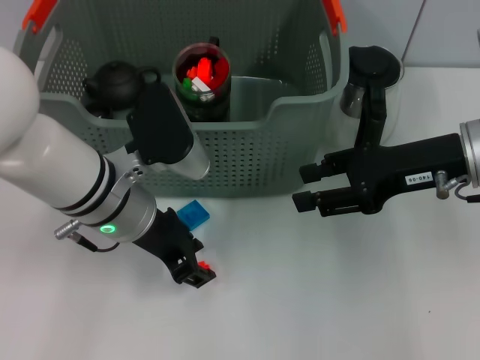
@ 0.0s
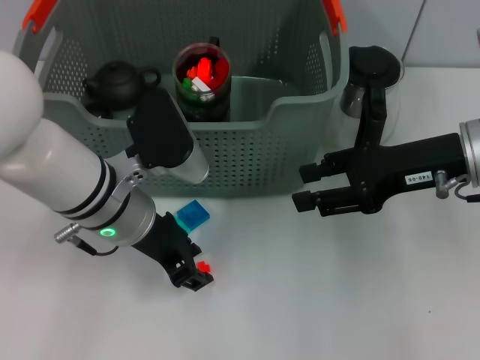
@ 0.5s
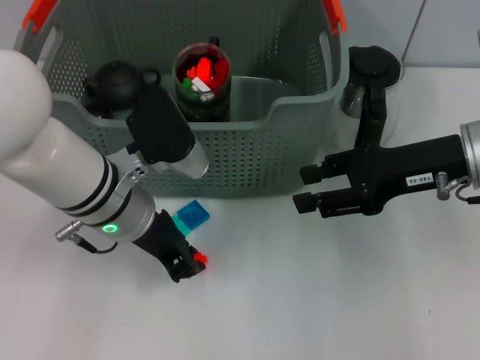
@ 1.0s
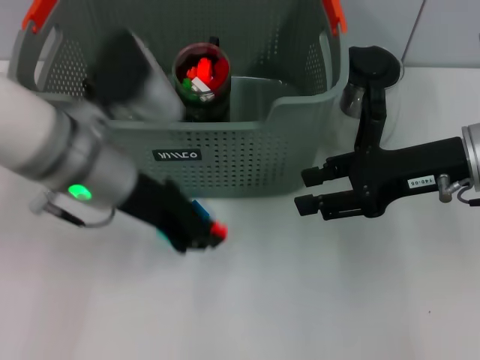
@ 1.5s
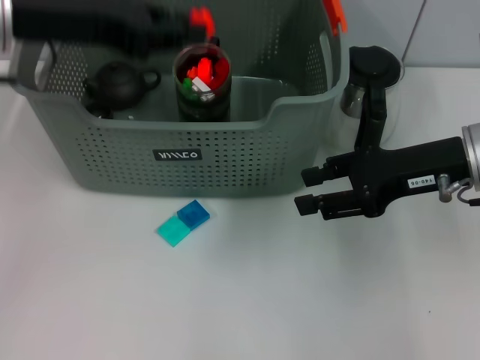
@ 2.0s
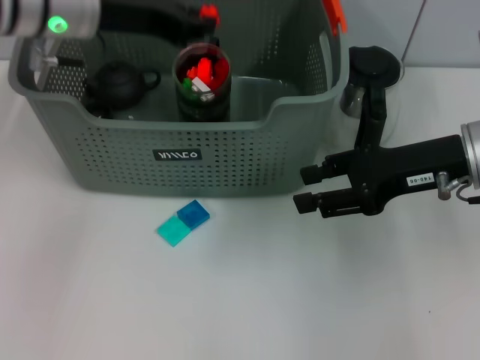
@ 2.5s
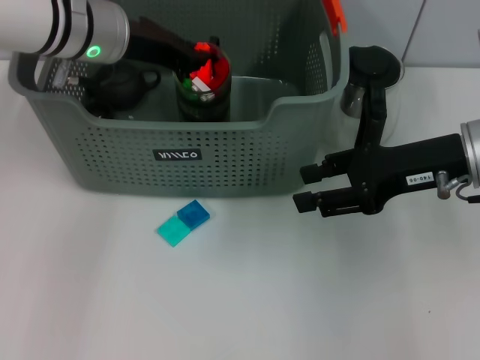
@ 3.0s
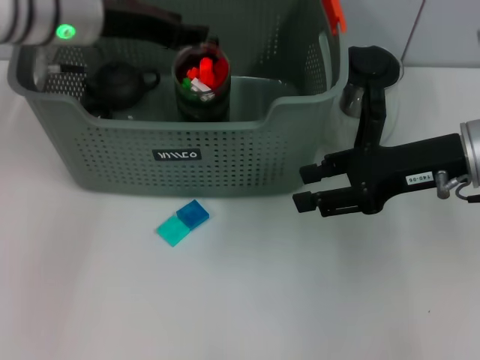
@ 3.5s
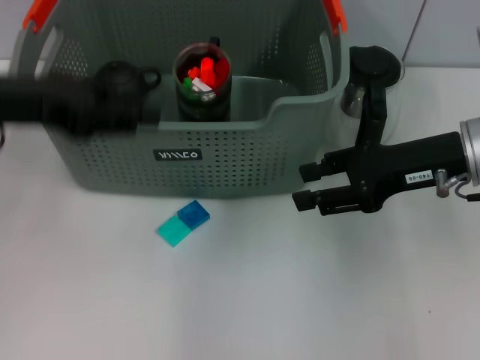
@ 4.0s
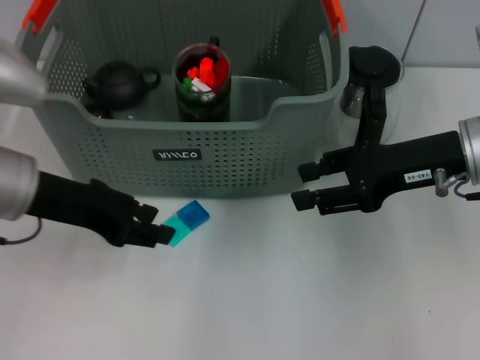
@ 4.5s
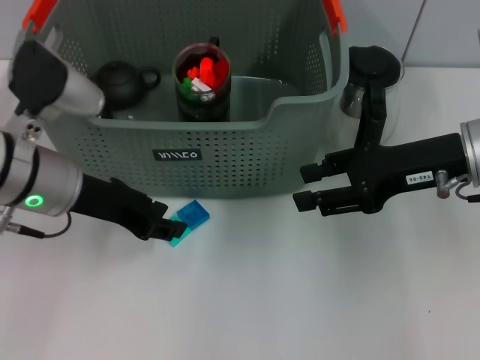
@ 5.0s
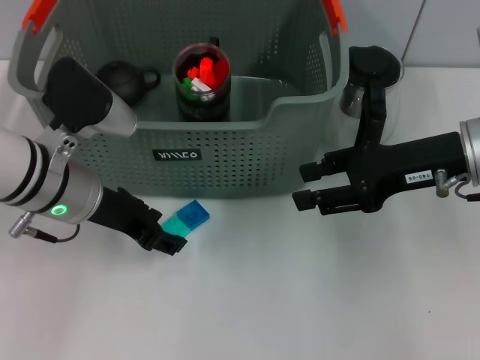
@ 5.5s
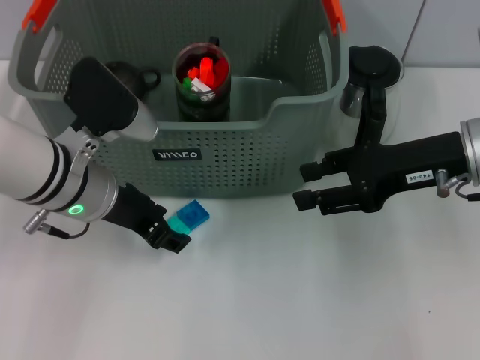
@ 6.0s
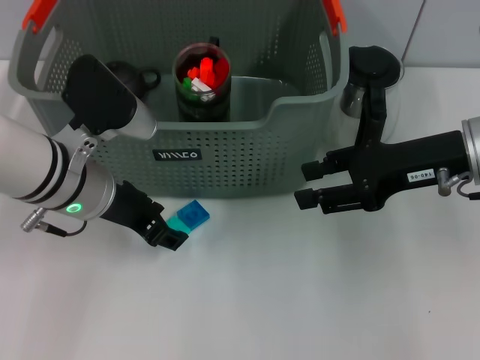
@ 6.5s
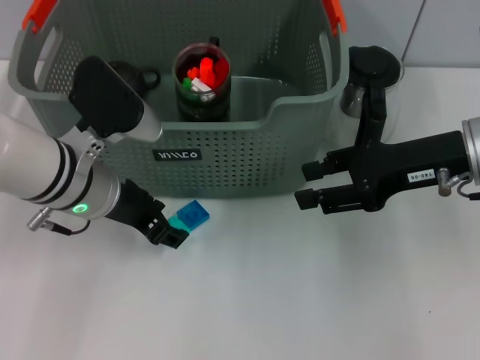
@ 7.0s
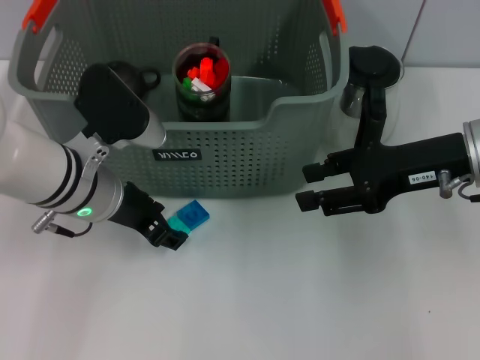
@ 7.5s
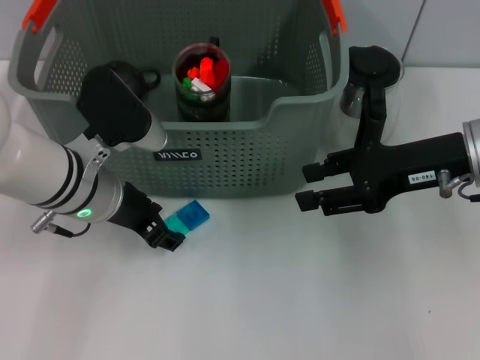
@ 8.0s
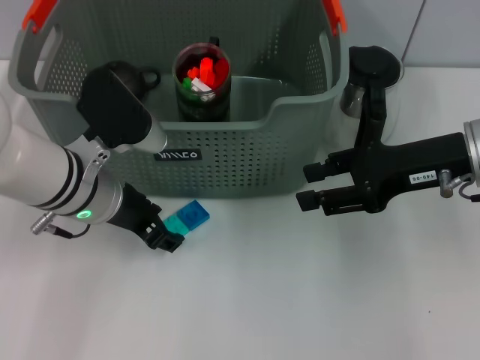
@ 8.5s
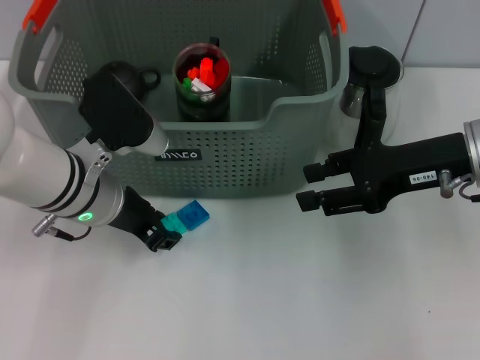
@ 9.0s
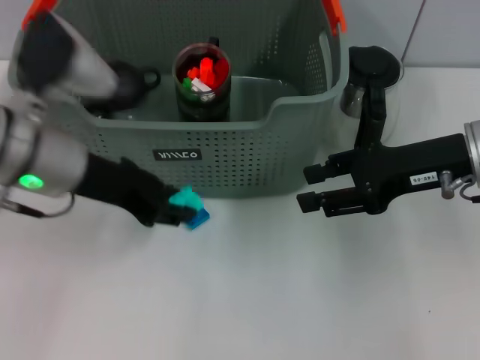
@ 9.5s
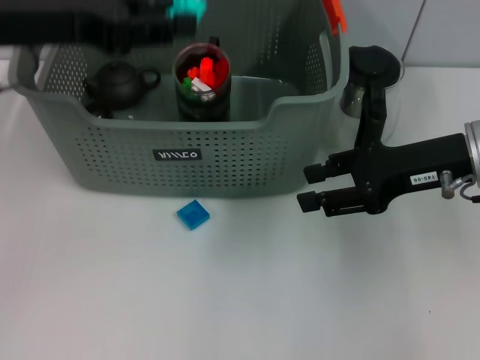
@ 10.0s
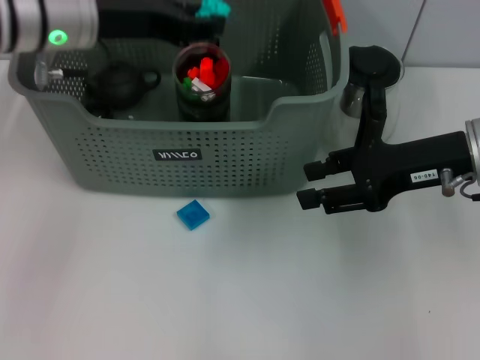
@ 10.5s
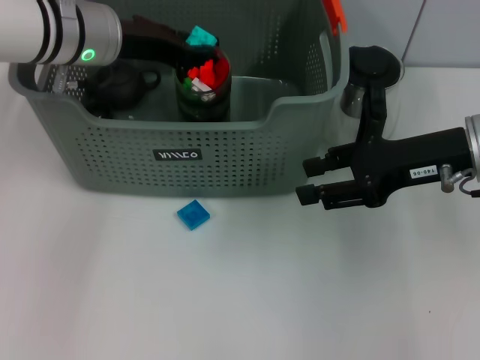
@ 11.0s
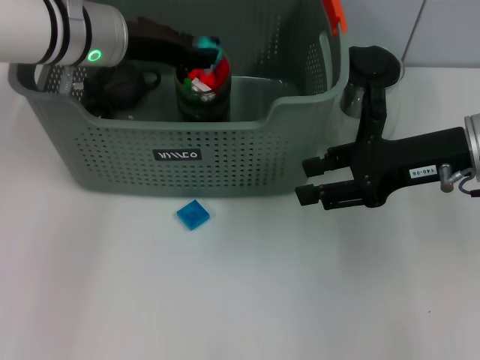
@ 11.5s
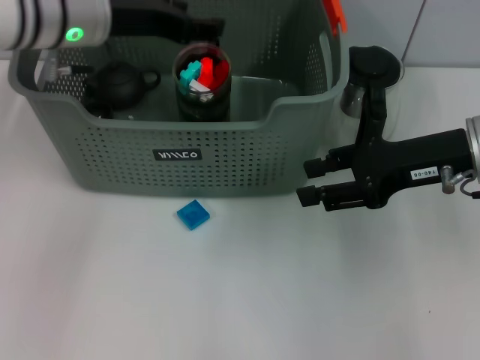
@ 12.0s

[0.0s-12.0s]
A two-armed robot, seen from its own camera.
Task of the whole recording: pick up the teacup on the table and place it into the storage bin, pick up the block on the table and place it into the storage bin.
Step, 1.5s to 3.5s: Place the orange block in the storage box with left gripper.
Step, 4.0s to 9.0s: Grasp the light blue block with left gripper.
Step, 9.5s to 11.5s: Place the light blue block in the storage box with left gripper.
0.0s to 2.0s: The left gripper goes about 20 cm upward and to the left, and closes.
2.0s to 4.0s: The left gripper opens up.
4.0s to 6.0s: The left gripper moves downward and to the right, approximately 15 cm.
6.0s to 8.0s: The grippers stay close to where they were, moving slightly.
8.0s to 10.0s: The left gripper shifts roughly 15 cm upward and to the left.
10.0s to 12.0s: The left gripper goes about 10 cm forward and to the right.

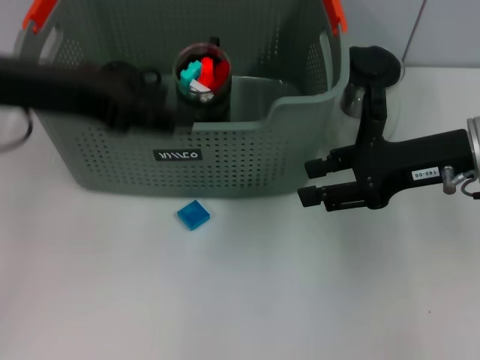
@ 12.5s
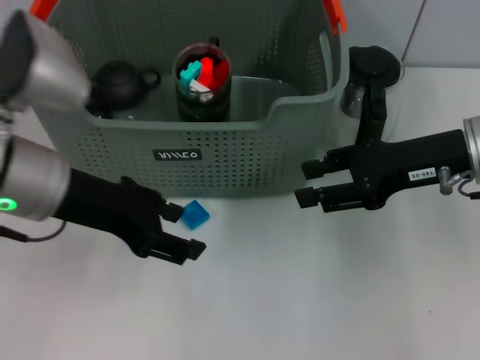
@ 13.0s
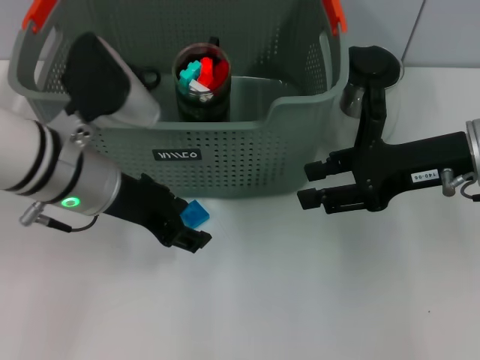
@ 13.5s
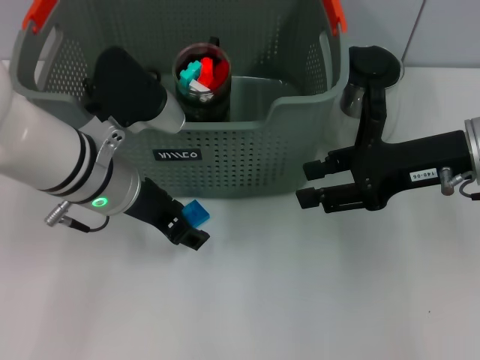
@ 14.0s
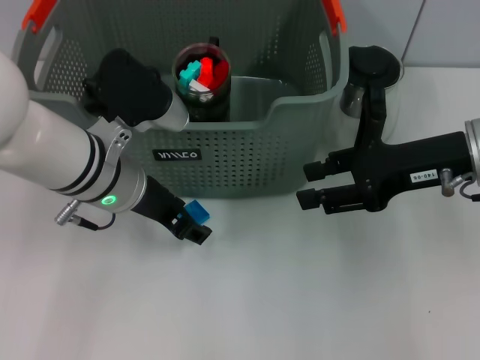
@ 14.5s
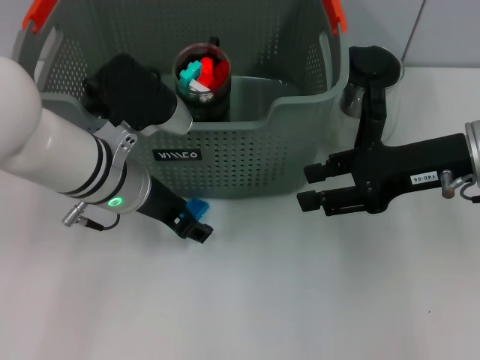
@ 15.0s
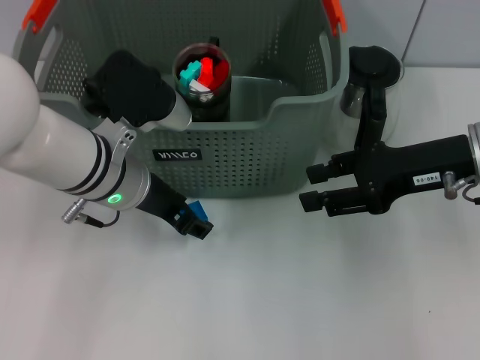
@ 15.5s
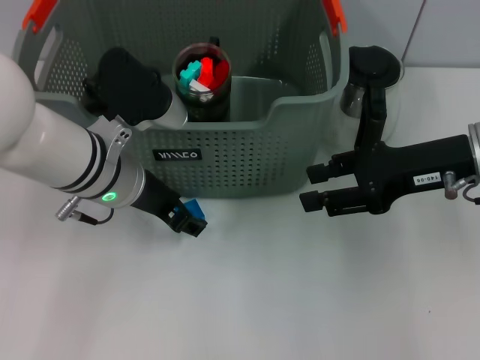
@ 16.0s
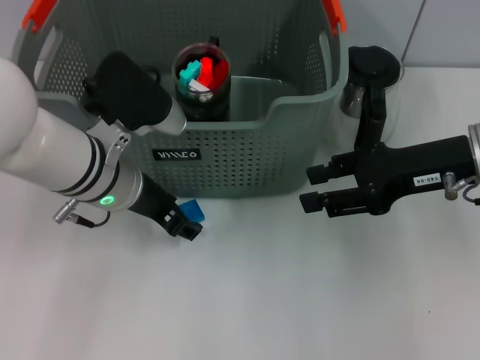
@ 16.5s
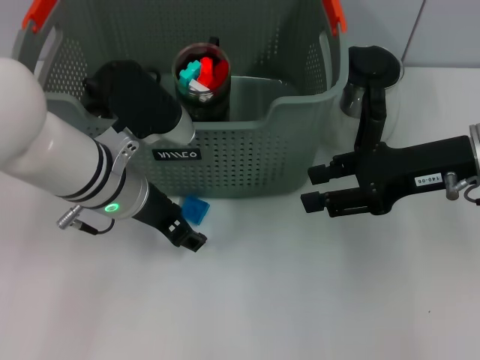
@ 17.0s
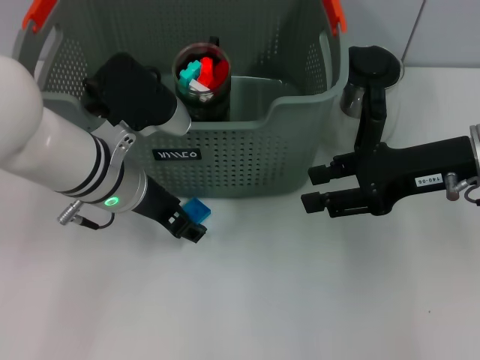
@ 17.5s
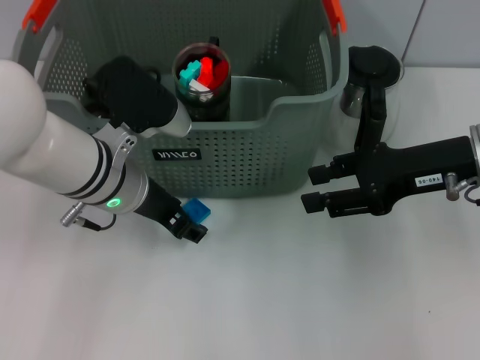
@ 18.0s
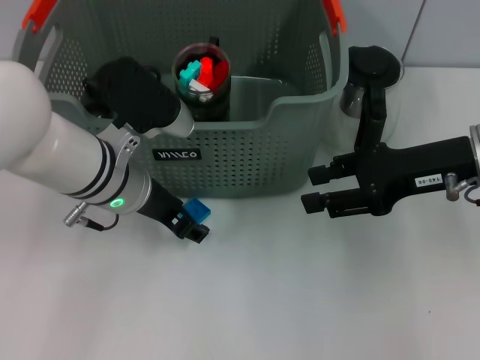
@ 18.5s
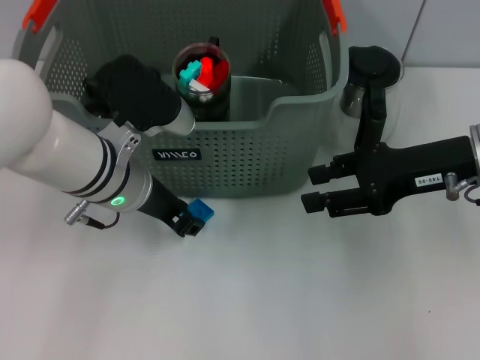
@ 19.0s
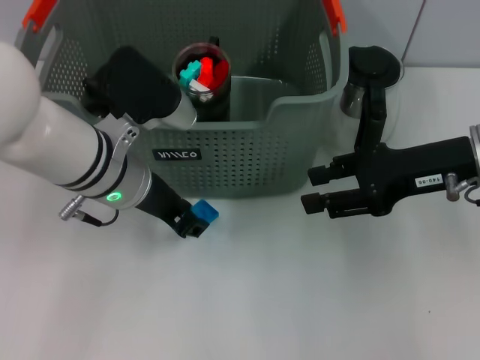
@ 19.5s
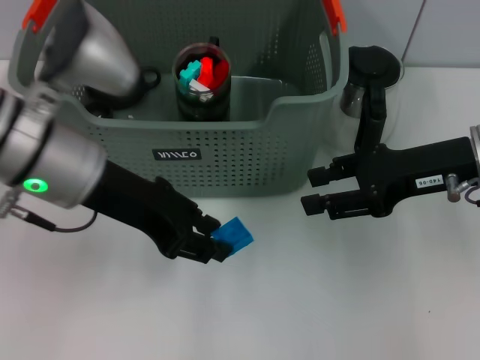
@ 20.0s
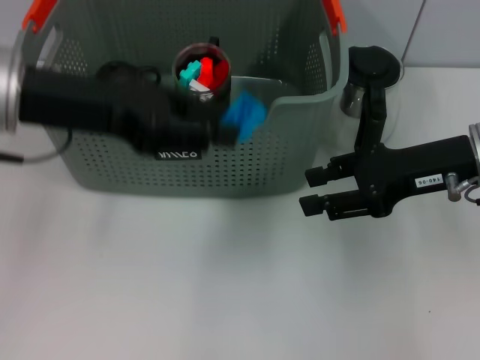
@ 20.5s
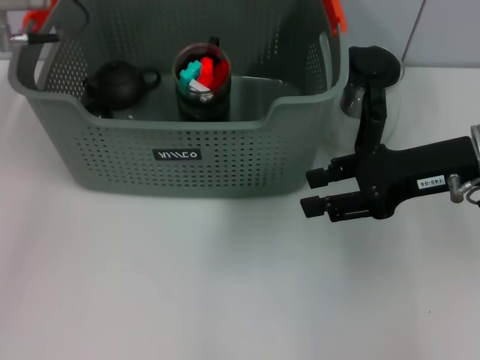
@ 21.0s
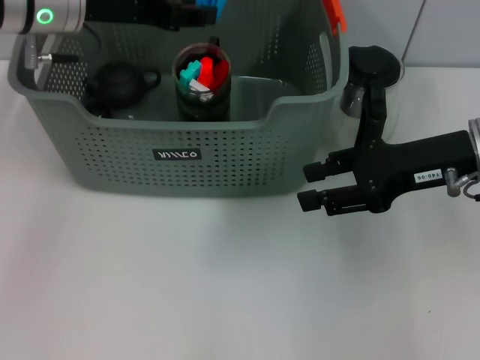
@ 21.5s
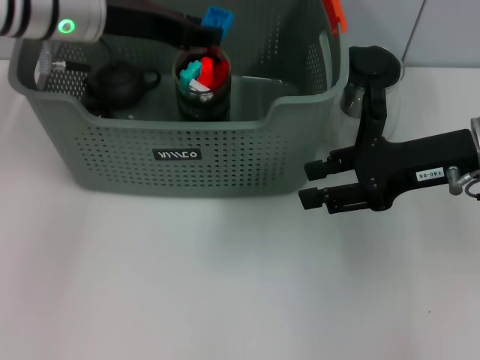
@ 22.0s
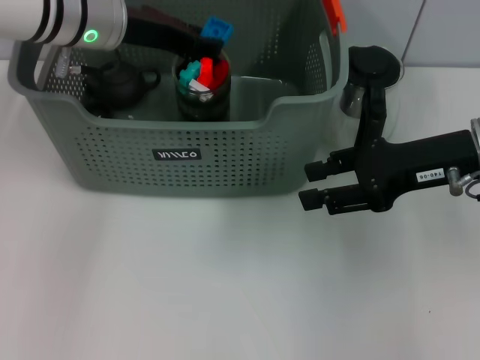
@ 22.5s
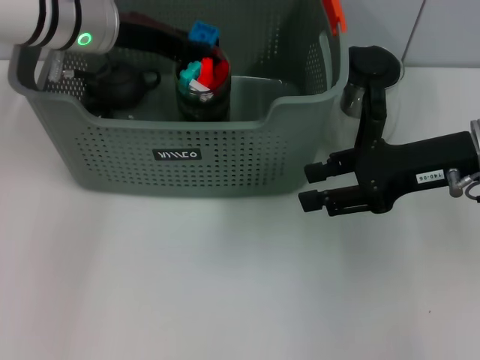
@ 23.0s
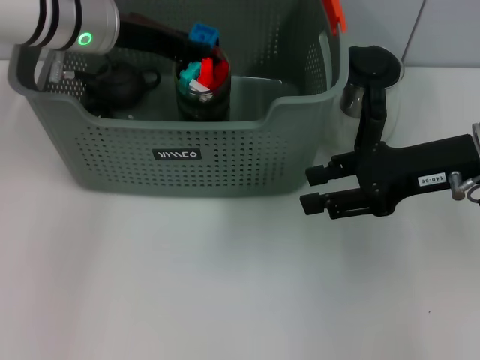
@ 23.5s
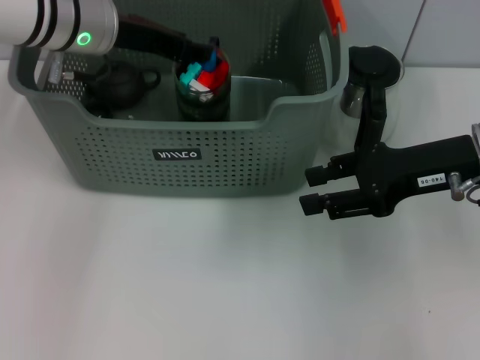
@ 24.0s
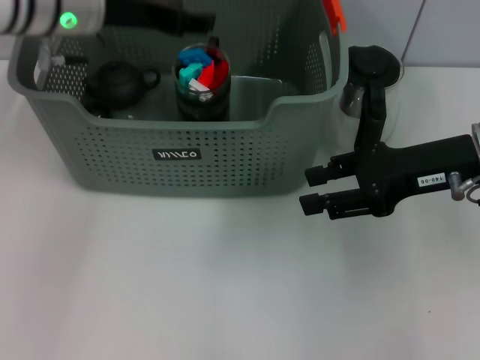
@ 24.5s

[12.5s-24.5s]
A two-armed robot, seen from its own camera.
Task of the whole recording: pick up the teacup on the table and place it into the storage bin, pick up the block on the table and place it into the storage bin.
Step, 12.5s to 19.0s: Grasp the dark blue block with left gripper.
Step, 19.5s to 24.0s: Place the dark blue block in the storage box with left gripper.
12.5s to 14.5s: The left gripper is displaced downward and to the right by roughly 15 cm.
14.5s to 16.5s: Both grippers stay put.
16.5s to 18.5s: Neither gripper changes place.
18.5s to 20.5s: The left gripper heads upward and to the left, covering roughly 15 cm.
20.5s to 22.5s: The left gripper shifts approximately 10 cm forward.
22.5s to 24.5s: There are only small adjustments of the grippers.

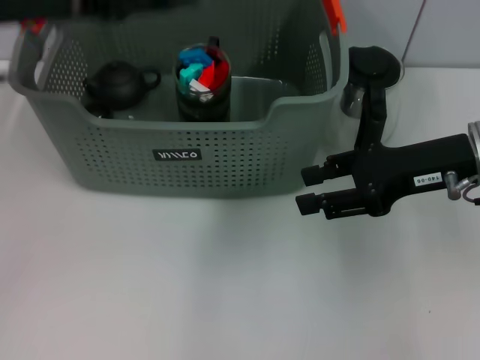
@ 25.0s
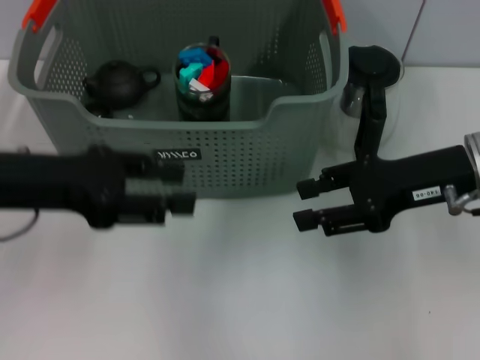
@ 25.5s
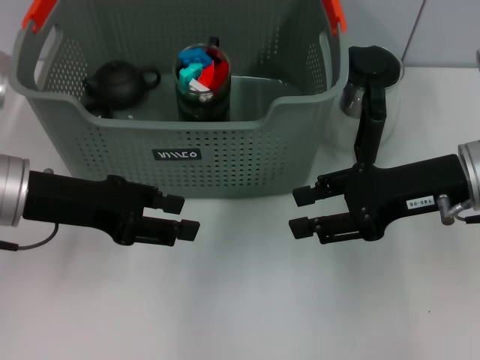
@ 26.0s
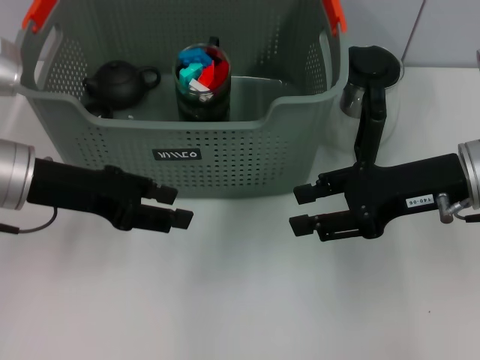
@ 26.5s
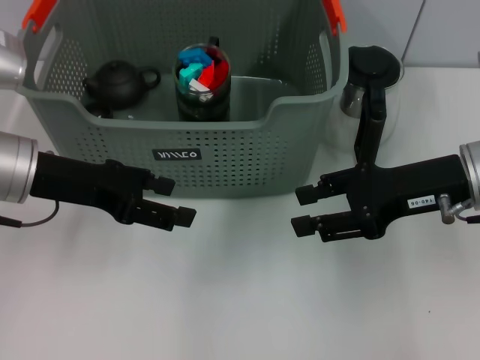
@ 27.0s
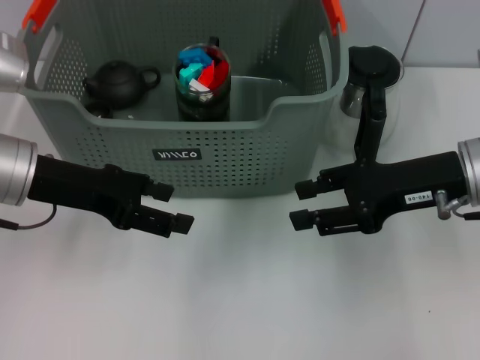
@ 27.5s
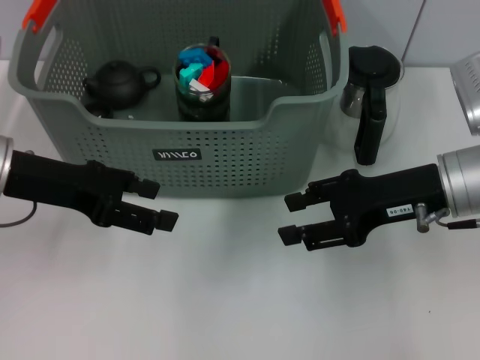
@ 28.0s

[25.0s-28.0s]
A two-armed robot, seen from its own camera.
Task of the whole recording: pick up the teacup on the table and place it into the storage bin, pick up the block on the table and place it into the storage bin.
25.0s to 26.5s: The left gripper is displaced downward by roughly 10 cm.
26.5s to 28.0s: The grippers stay close to where they were, moving slightly.
